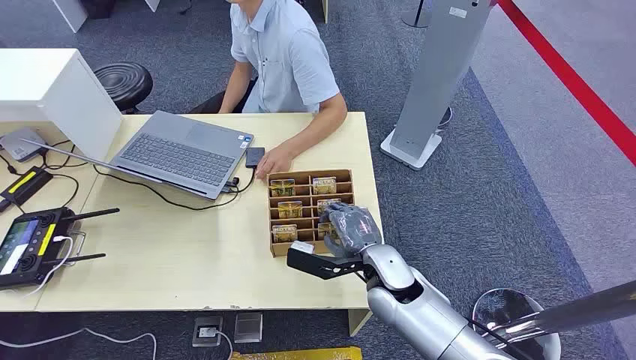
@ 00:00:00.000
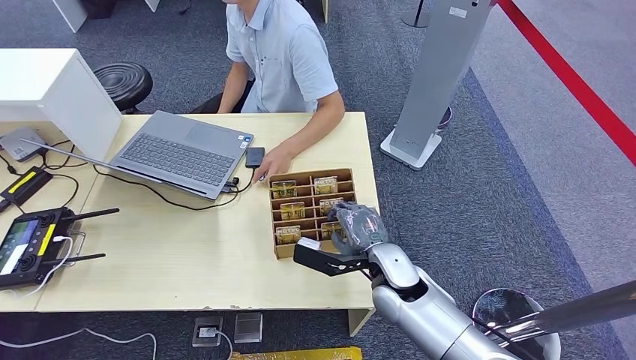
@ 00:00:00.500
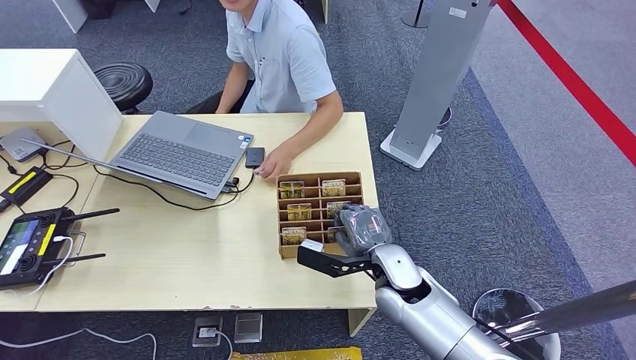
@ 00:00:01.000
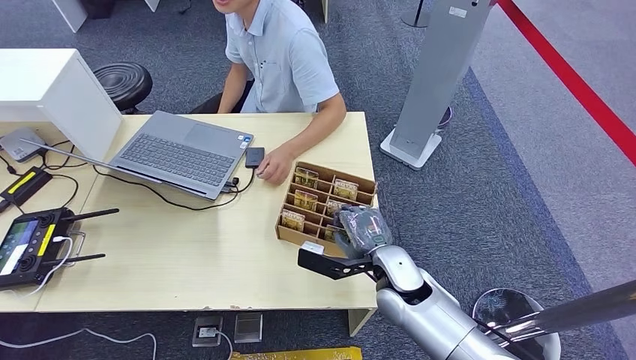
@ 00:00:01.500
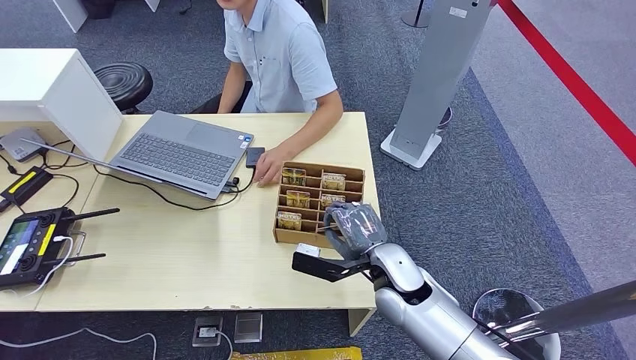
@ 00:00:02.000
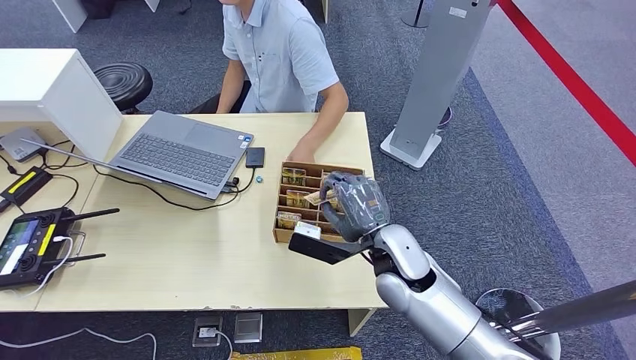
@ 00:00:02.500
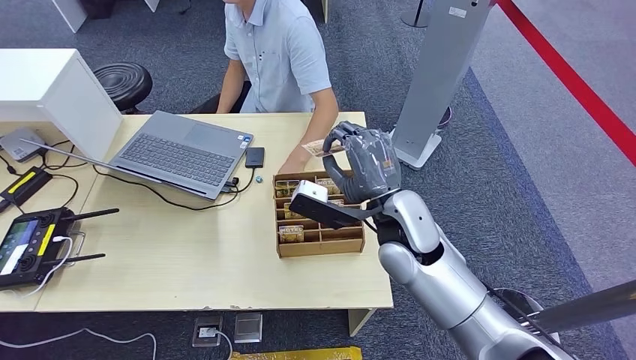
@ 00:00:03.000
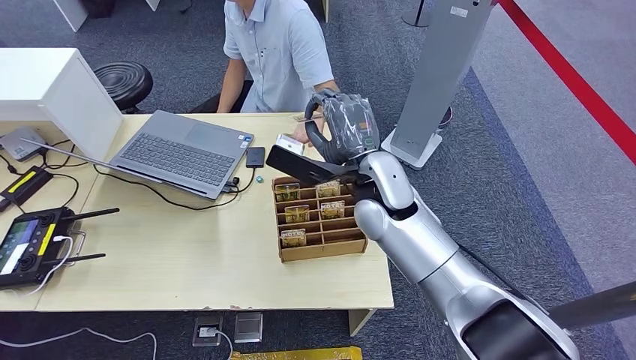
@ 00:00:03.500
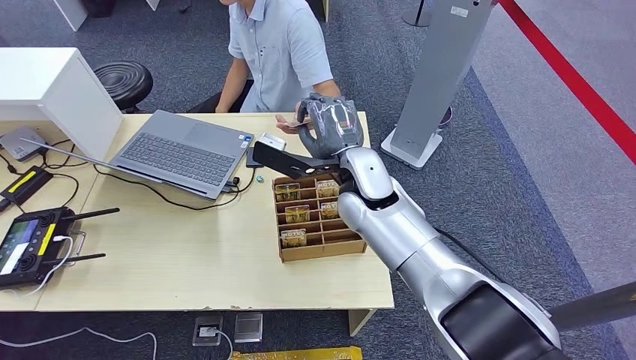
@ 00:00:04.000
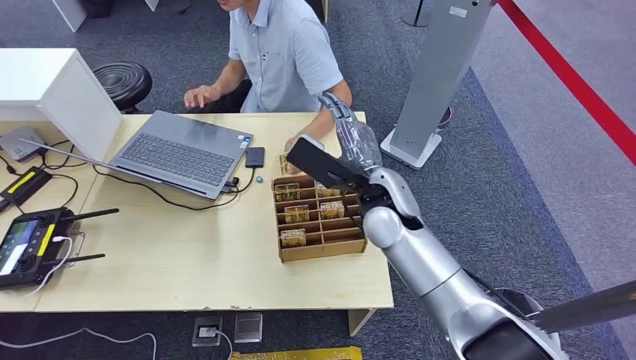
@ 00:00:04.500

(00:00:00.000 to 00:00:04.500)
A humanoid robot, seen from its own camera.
Step, 00:00:00.000 - 00:00:02.000: Pick up the key card from the card box.
Step, 00:00:03.000 - 00:00:04.500: Hand the key card to the target.
00:00:02.000 - 00:00:04.500: The right hand goes some 15 cm upward and forward.
